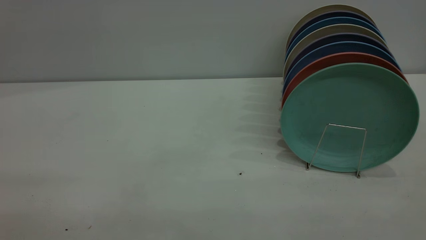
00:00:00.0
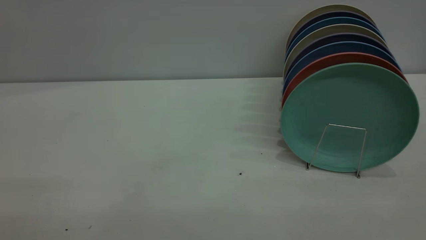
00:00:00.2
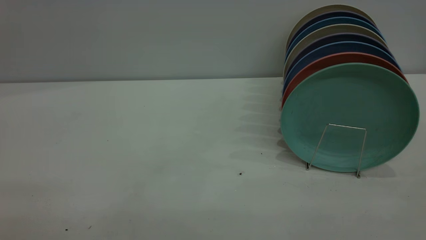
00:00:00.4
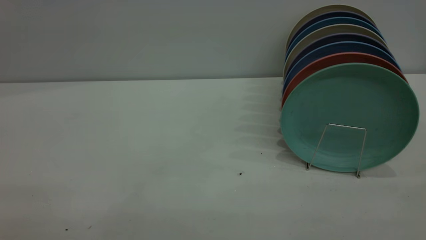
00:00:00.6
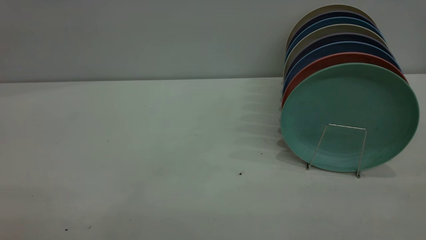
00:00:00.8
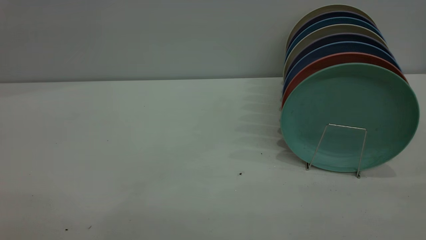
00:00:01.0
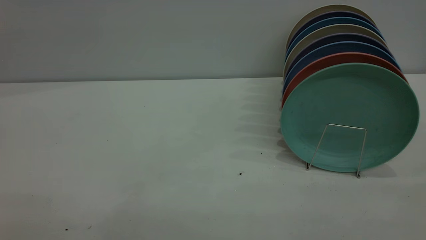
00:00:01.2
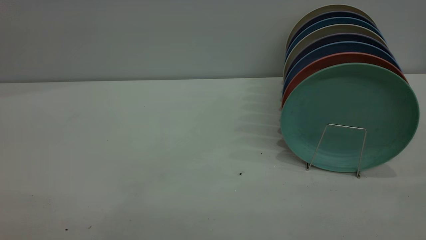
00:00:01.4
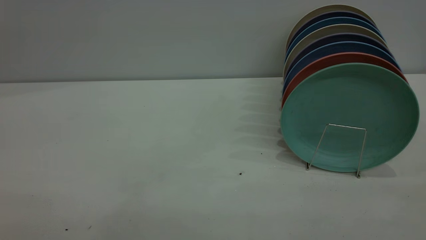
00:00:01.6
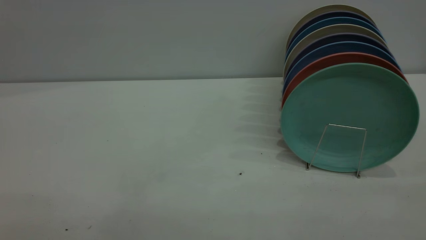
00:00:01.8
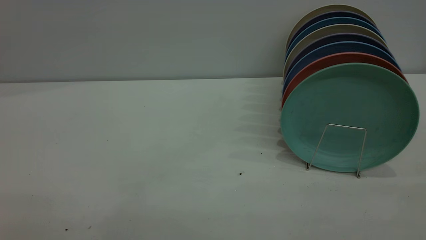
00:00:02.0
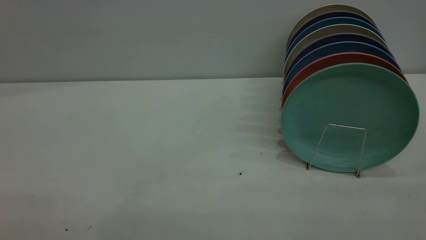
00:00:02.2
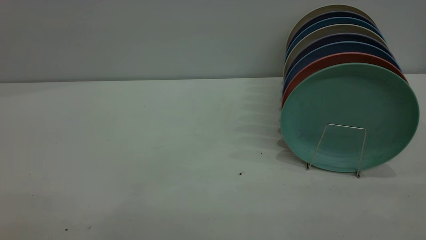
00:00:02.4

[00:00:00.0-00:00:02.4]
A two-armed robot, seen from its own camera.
Task of the whole recording: the left gripper grasp the green plate, the left gripper pass the green plate to the right gripper, and the right gripper place the green plate on the plate rack.
00:00:01.2 to 00:00:02.4: The two grippers keep their place.

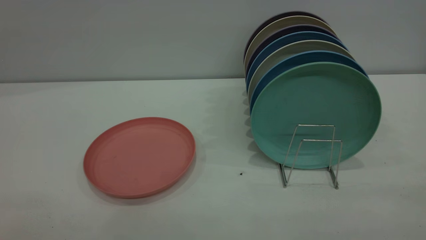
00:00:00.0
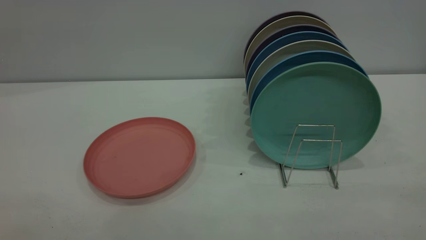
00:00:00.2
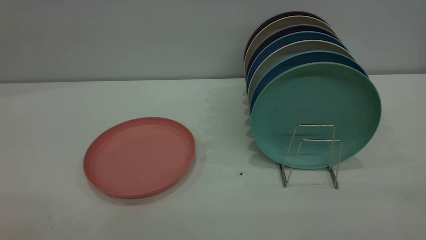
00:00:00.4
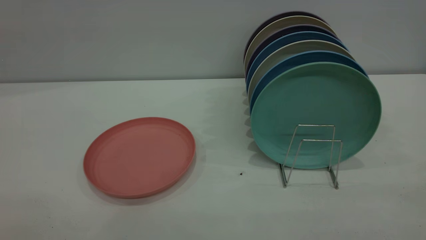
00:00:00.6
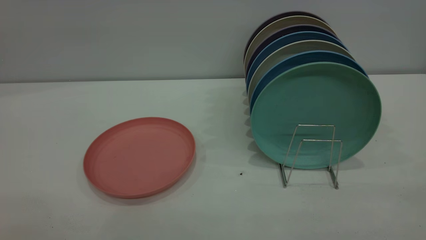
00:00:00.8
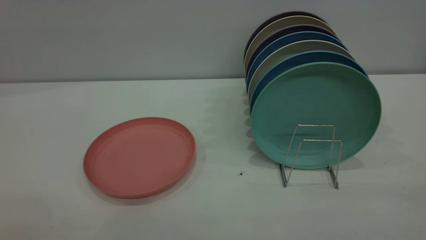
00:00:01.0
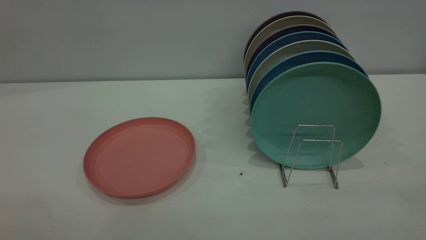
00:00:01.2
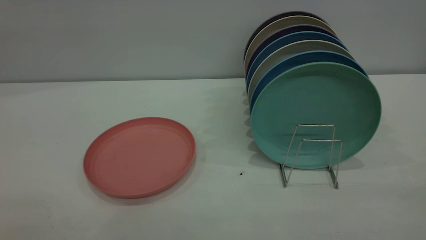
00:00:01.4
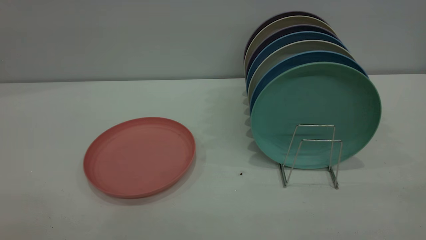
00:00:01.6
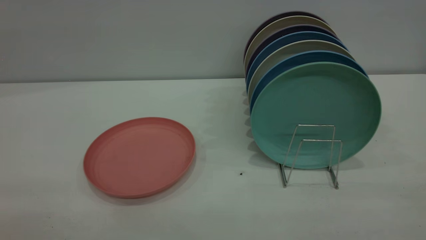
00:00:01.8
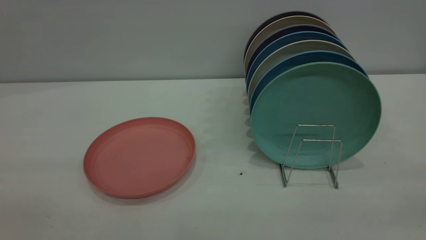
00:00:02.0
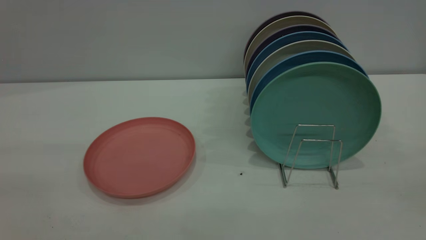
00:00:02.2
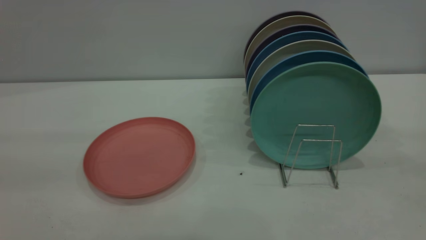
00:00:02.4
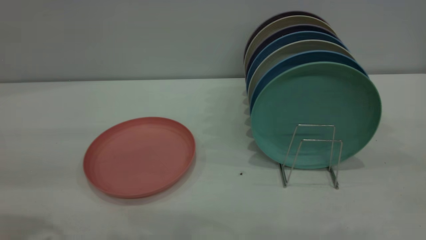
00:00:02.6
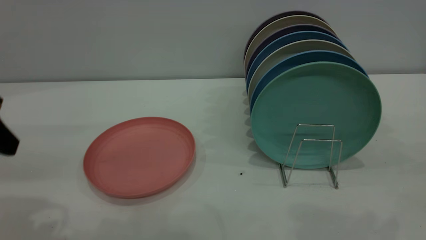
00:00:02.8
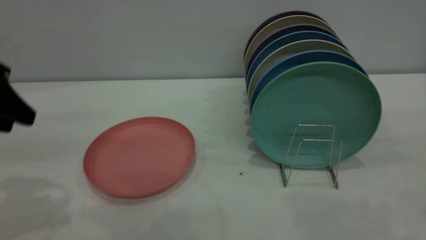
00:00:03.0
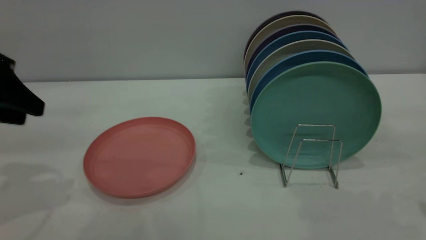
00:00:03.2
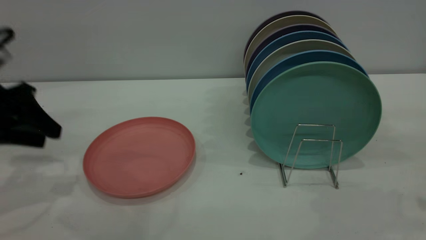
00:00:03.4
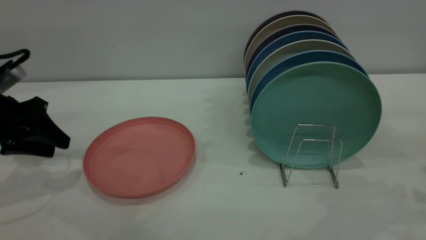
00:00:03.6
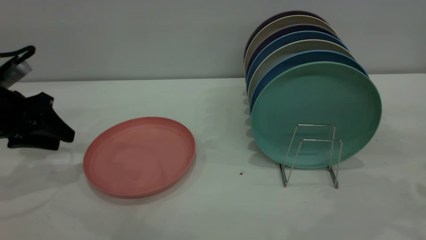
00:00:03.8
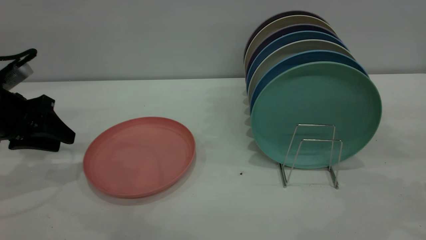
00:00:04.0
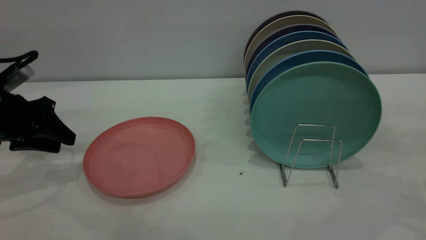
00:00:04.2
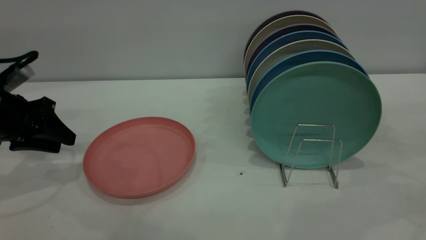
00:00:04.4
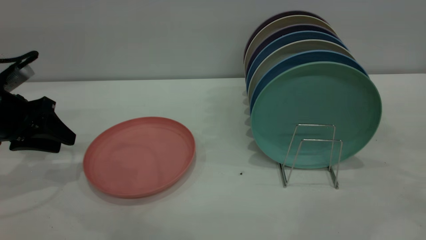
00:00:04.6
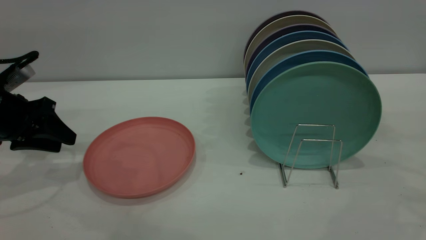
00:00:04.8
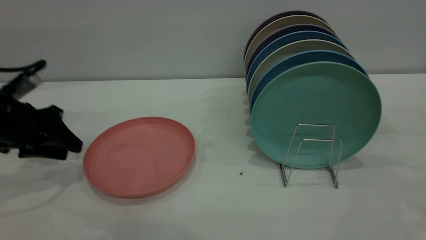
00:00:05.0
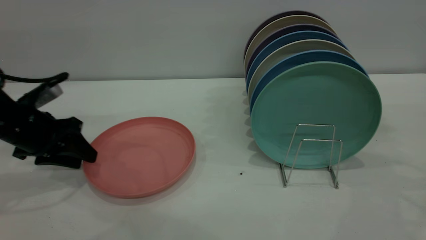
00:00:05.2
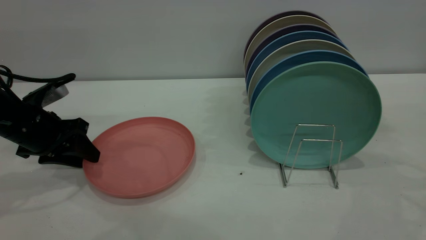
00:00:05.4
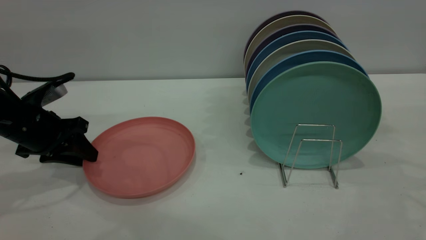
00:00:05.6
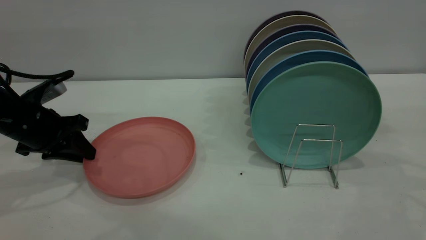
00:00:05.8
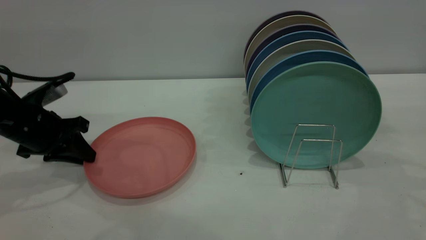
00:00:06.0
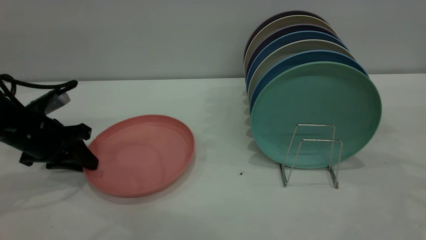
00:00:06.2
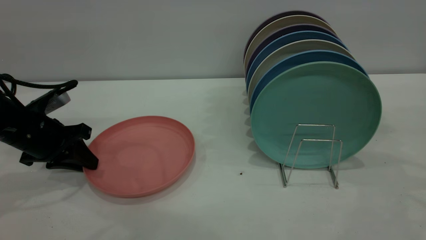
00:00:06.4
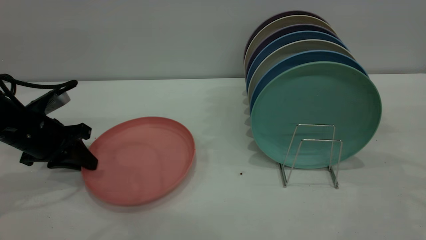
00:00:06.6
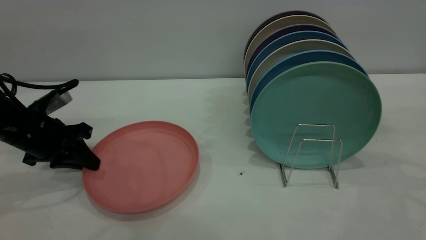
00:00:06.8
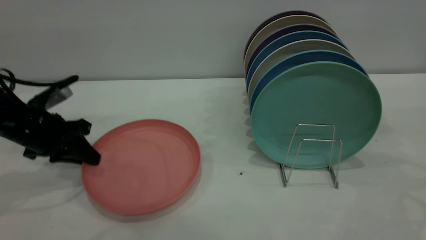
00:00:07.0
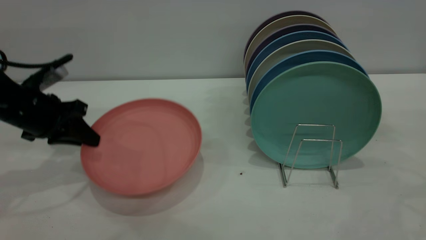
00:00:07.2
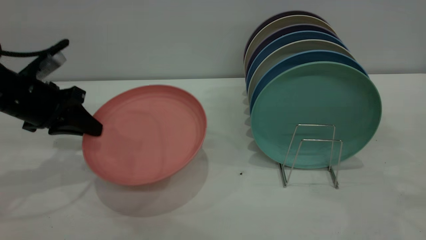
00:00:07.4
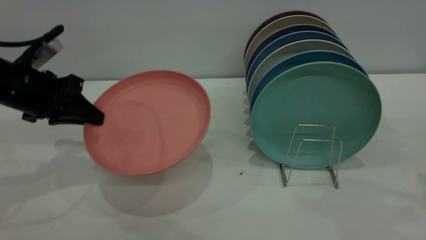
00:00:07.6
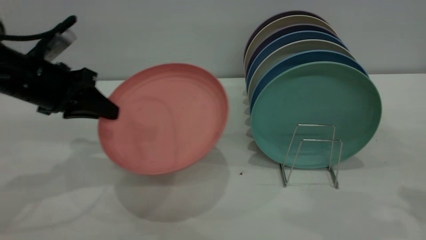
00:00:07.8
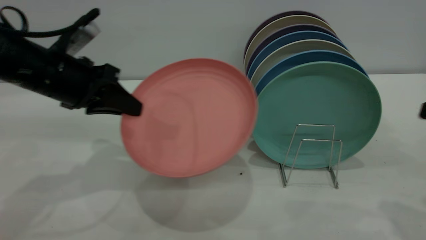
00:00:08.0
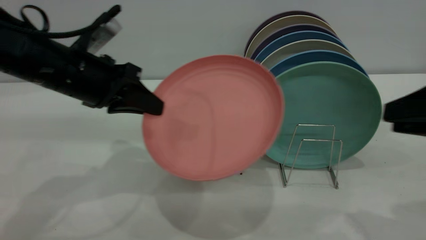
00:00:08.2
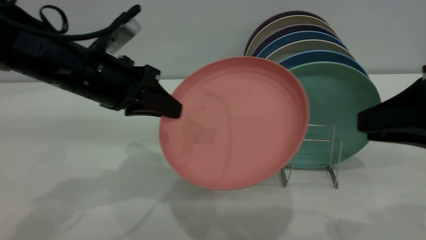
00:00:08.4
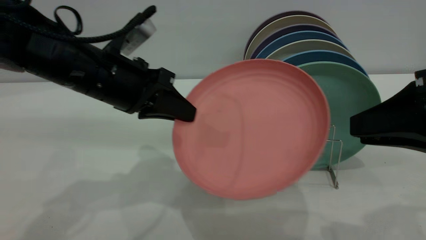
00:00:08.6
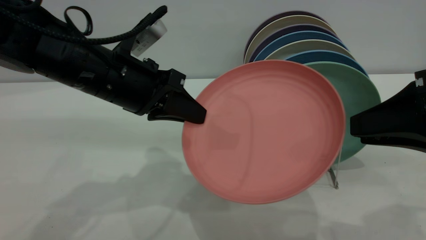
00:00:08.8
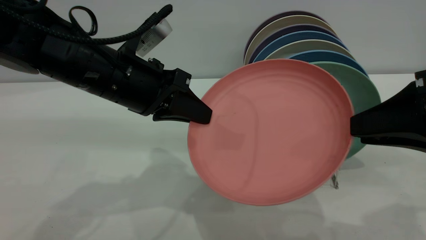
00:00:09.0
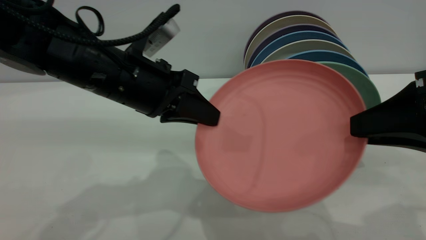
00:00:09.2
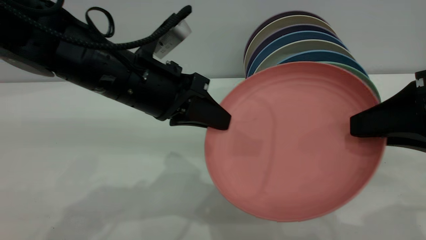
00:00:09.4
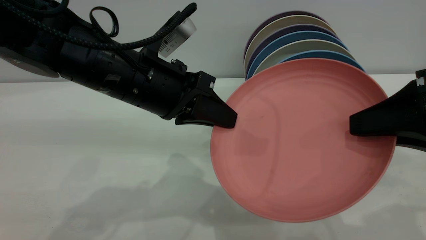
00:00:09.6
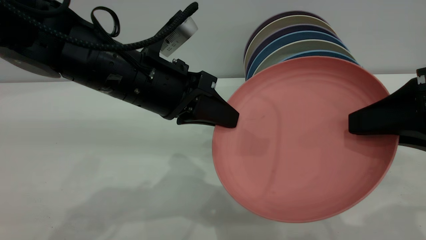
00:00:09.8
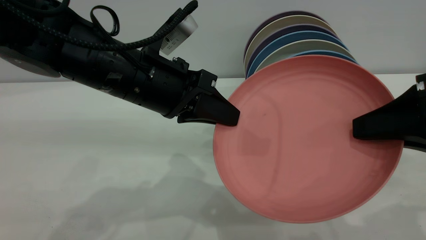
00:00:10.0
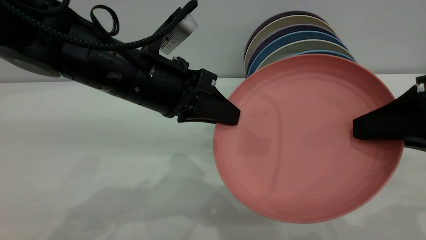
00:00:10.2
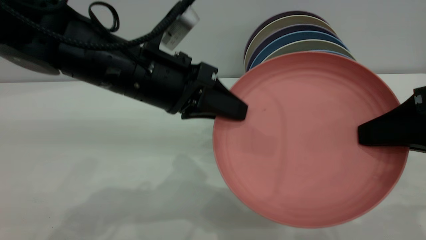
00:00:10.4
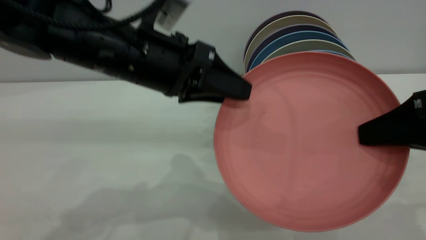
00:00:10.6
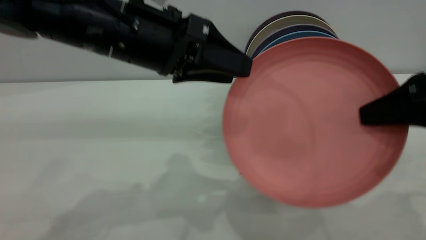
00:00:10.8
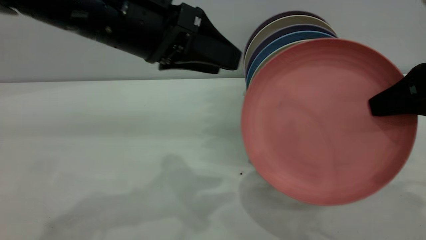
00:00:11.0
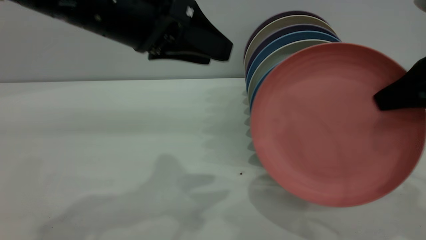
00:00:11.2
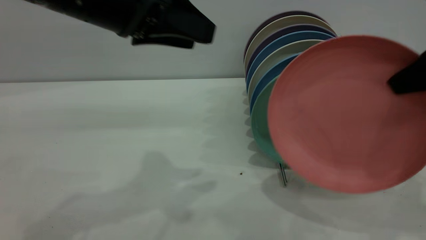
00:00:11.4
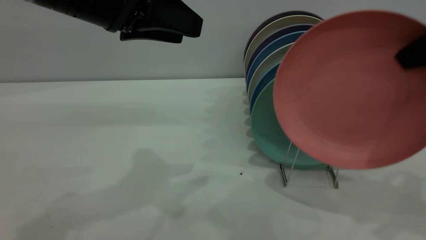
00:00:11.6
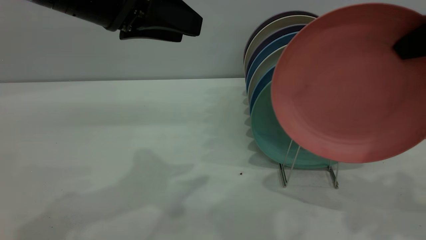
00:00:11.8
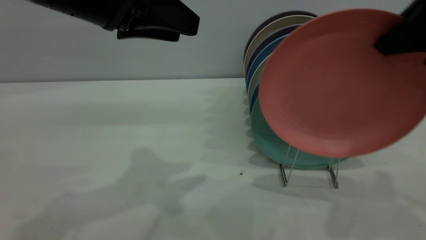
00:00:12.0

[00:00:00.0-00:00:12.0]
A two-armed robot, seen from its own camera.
Task of the whole recording: put the plate on the plate rack.
Step, 00:00:00.0 to 00:00:07.0: Pick up the plate with the left gripper.
Step, 00:00:07.4 to 00:00:10.8: Pass the plate from the left gripper to the right gripper.
00:00:00.0 to 00:00:01.6: Both grippers stay about where they are.
00:00:01.6 to 00:00:03.0: The left gripper shifts roughly 30 cm forward.
00:00:03.0 to 00:00:04.4: The left gripper moves downward and forward, approximately 15 cm.
00:00:04.4 to 00:00:06.0: The left gripper changes place by about 5 cm, and closes its fingers.
00:00:06.0 to 00:00:07.6: The right gripper shifts about 5 cm backward. Meanwhile the left gripper is displaced upward by approximately 5 cm.
00:00:07.6 to 00:00:09.0: The right gripper shifts approximately 15 cm to the left. The left gripper heads to the right, covering about 15 cm.
00:00:09.0 to 00:00:10.4: The right gripper closes up.
00:00:10.4 to 00:00:12.0: The right gripper is displaced upward and forward by some 10 cm. The left gripper is displaced upward and to the left by approximately 10 cm, and opens up.

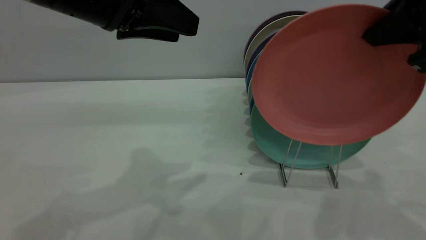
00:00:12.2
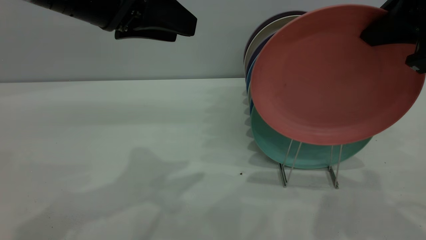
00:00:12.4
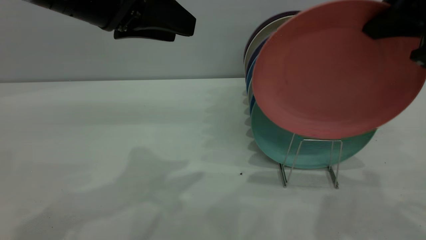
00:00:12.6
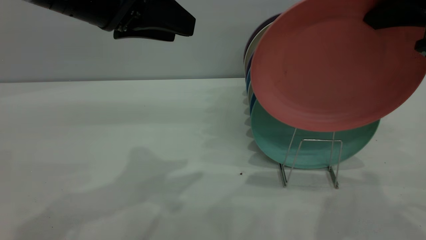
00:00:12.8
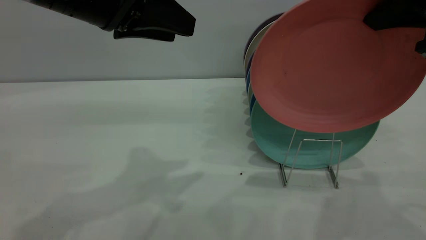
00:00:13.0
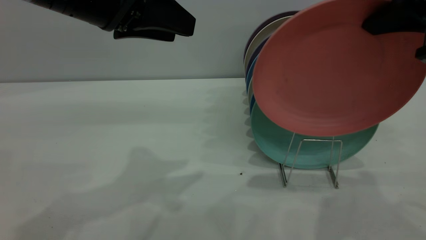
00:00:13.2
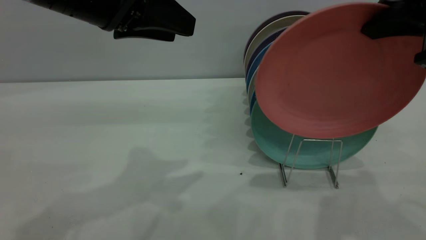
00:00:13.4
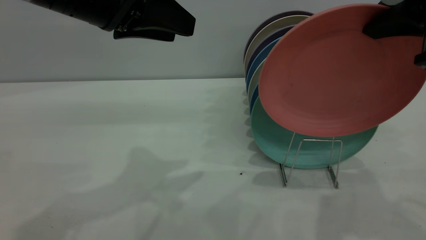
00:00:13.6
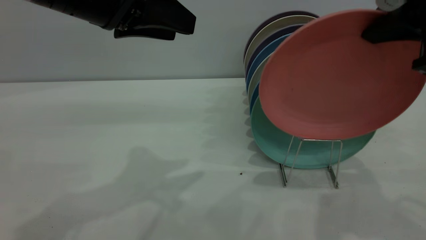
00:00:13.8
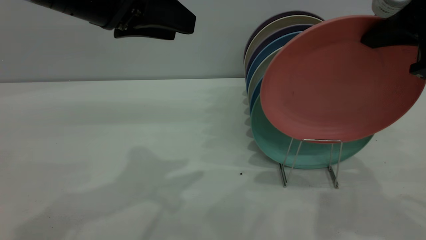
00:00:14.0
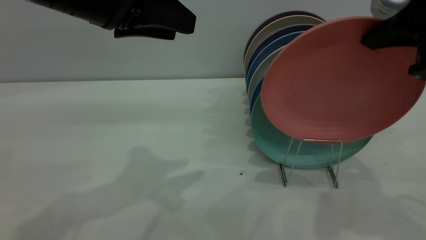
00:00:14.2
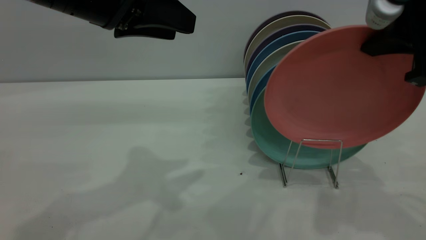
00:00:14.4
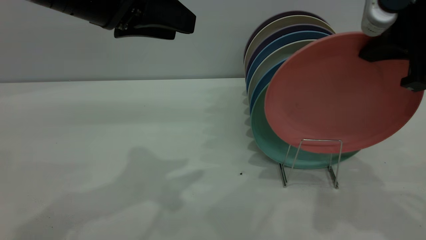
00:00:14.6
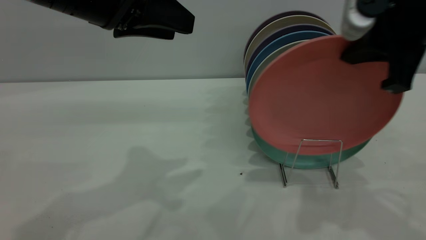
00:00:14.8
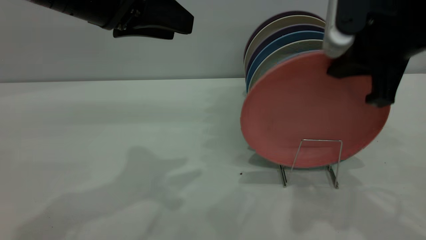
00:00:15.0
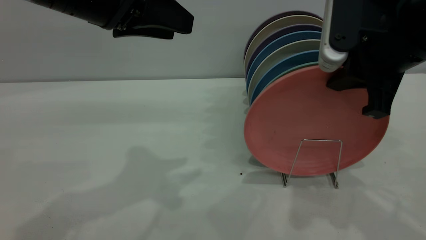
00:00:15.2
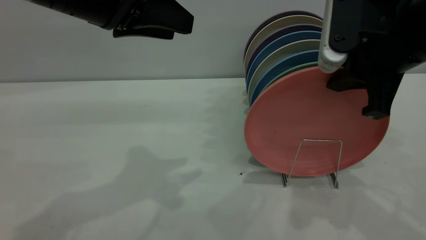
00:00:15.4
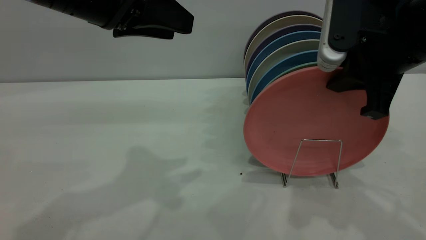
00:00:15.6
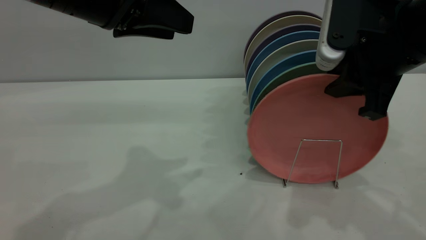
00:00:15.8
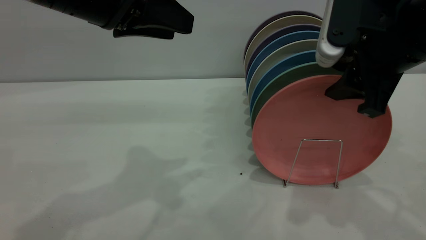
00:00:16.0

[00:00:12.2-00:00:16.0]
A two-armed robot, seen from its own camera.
Task of the whole recording: put the plate on the plate rack.
00:00:12.2 to 00:00:14.8: The grippers make only small movements.
00:00:14.8 to 00:00:16.0: The right gripper opens up.
